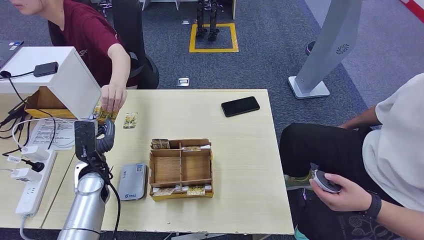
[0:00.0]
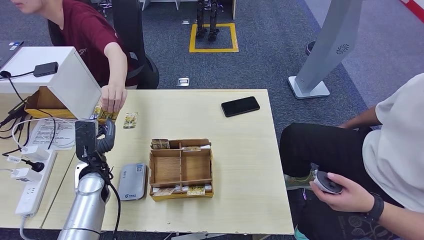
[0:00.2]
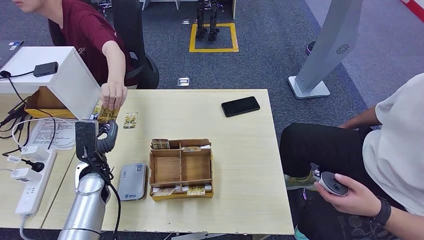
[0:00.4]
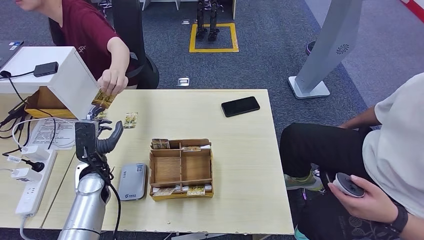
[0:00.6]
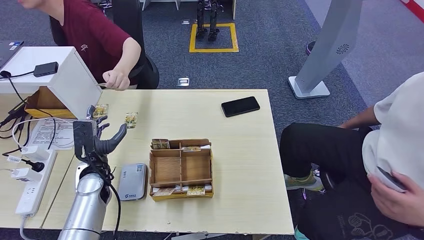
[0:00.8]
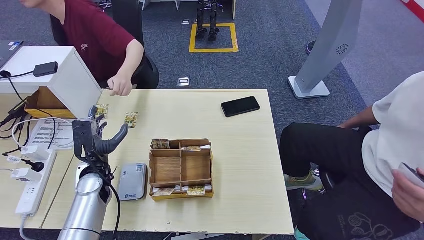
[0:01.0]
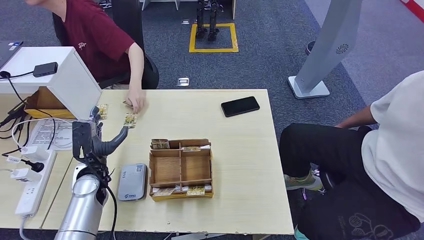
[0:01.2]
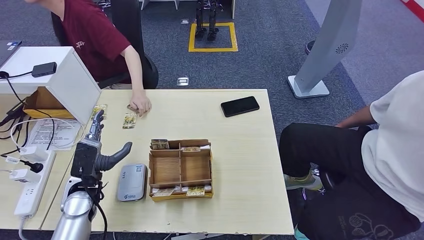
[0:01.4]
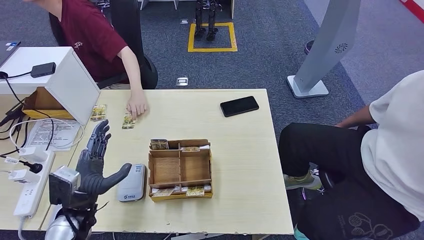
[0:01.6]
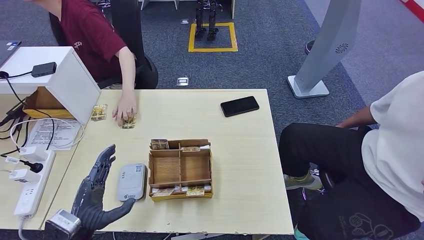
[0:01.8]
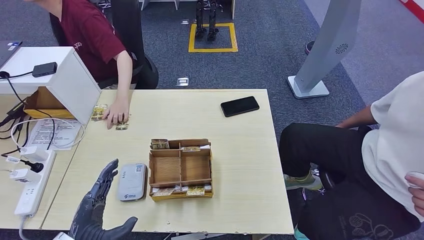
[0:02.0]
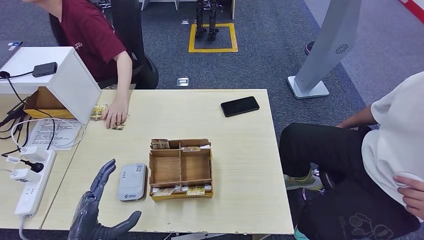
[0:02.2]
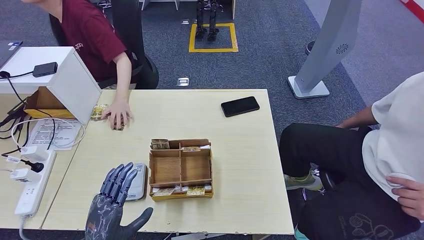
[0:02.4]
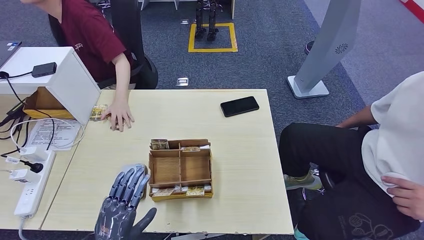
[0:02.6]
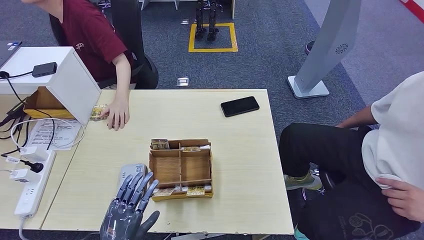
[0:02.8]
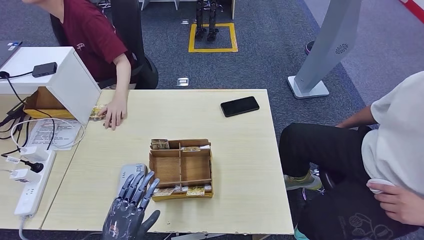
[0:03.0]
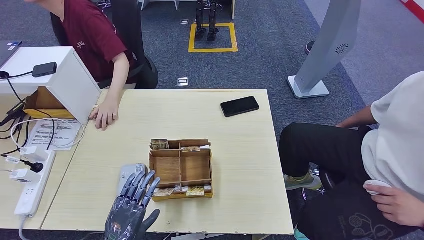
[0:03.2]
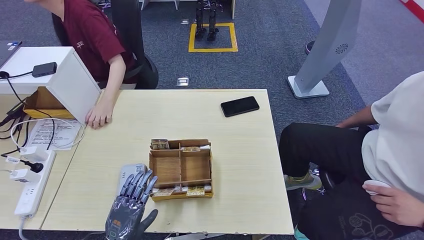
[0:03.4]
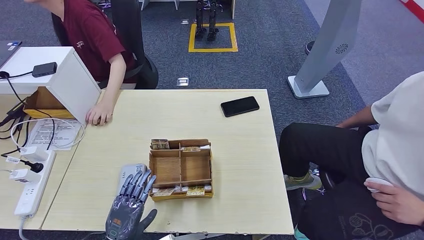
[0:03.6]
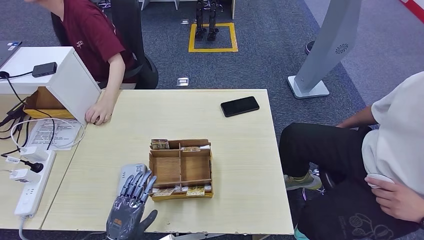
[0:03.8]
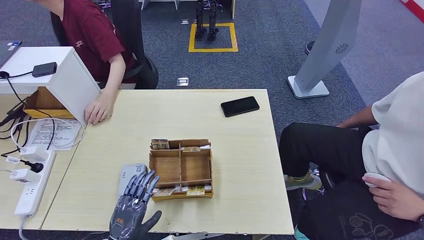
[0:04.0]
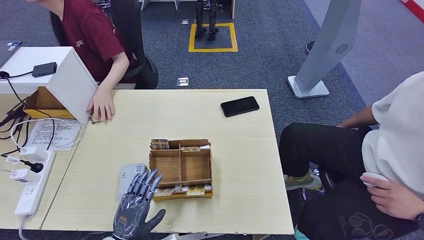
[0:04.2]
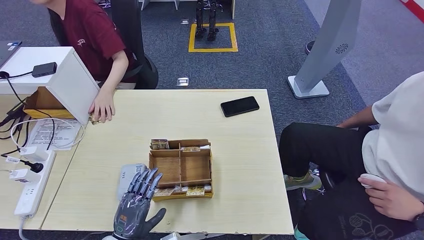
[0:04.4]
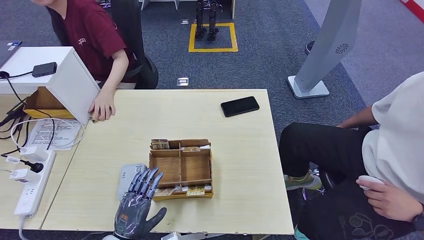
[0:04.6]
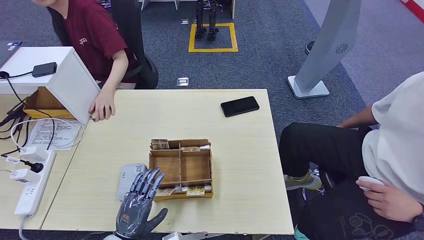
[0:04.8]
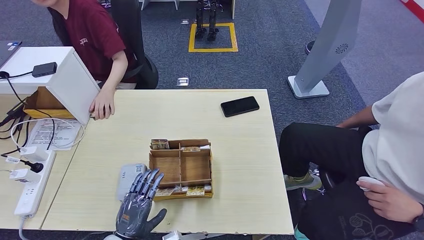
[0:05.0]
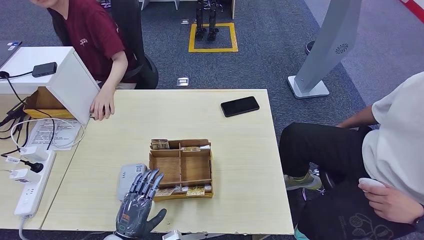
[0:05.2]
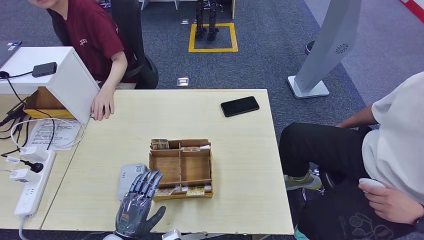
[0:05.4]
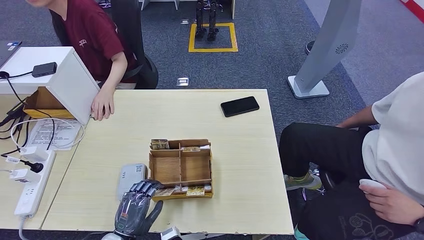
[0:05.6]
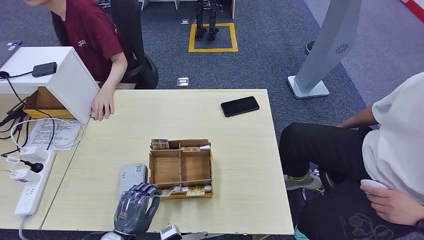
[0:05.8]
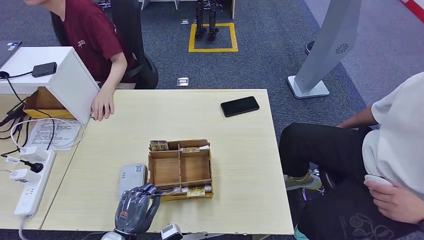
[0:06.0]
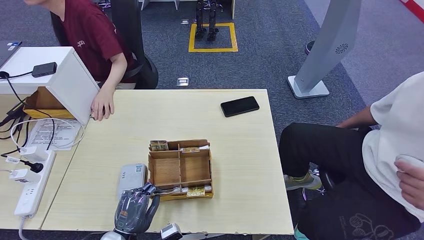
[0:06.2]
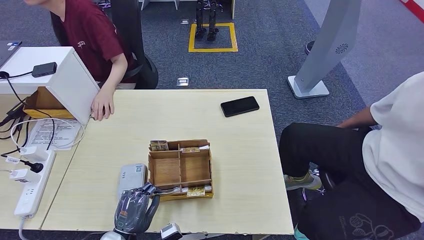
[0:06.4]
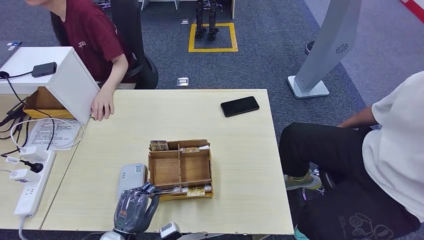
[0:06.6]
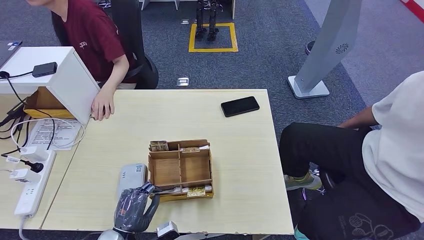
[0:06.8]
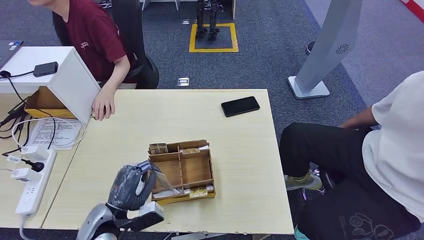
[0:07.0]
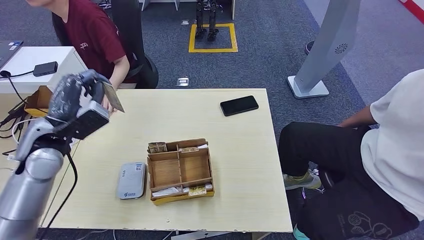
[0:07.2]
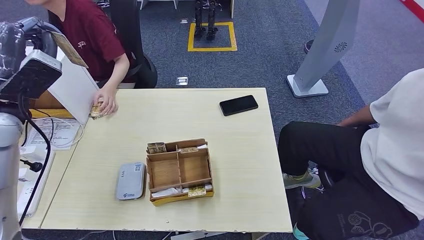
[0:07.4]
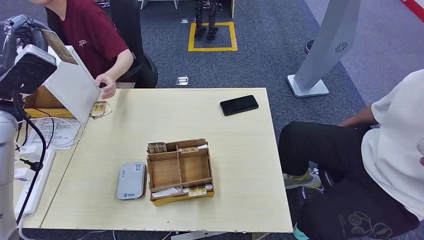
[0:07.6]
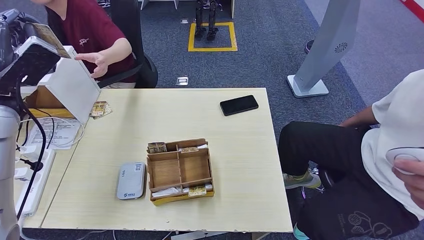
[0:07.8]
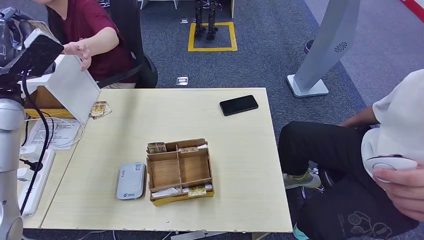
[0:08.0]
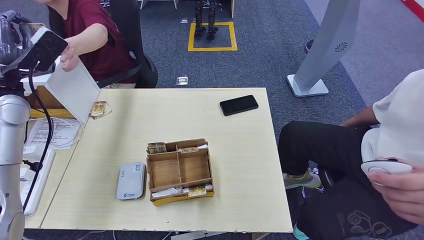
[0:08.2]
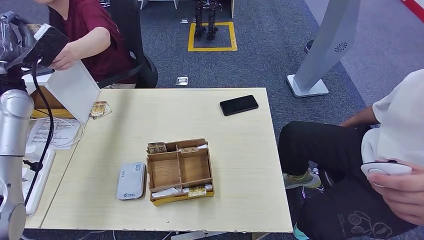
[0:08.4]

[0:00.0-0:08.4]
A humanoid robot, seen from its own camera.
Step, 0:03.6 to 0:07.4: Pick up the room key from the key card box.
Step, 0:07.6 to 0:08.4: Hand the room key to the person.
0:00.0 to 0:01.4: There are only small adjustments of the hands.
0:01.4 to 0:02.8: The left hand shifts some 20 cm backward and to the right.
0:02.8 to 0:05.6: The hands move only a little.
0:05.6 to 0:07.0: The left hand moves forward and upward, roughly 10 cm.
